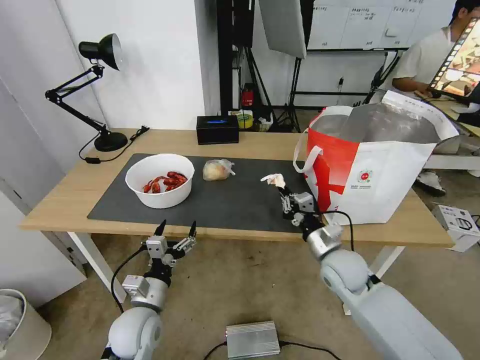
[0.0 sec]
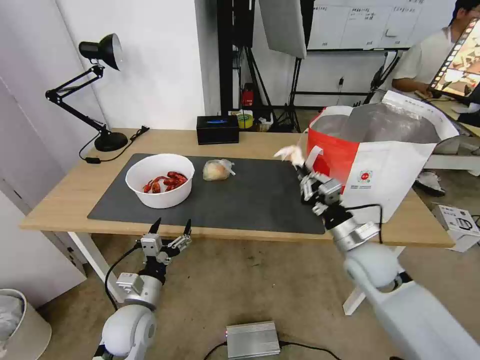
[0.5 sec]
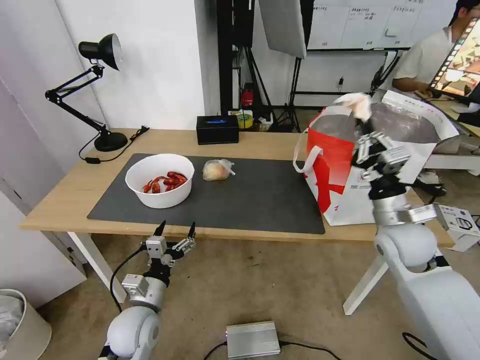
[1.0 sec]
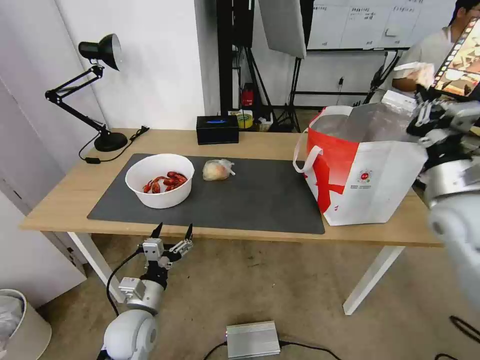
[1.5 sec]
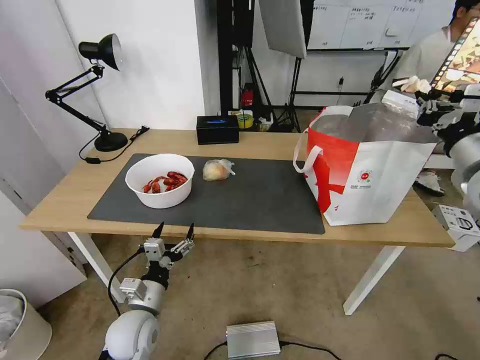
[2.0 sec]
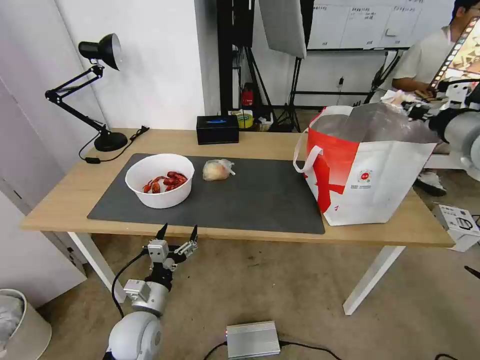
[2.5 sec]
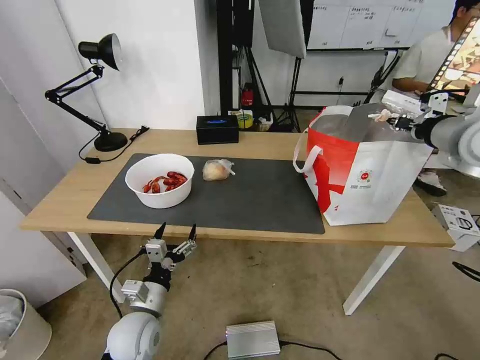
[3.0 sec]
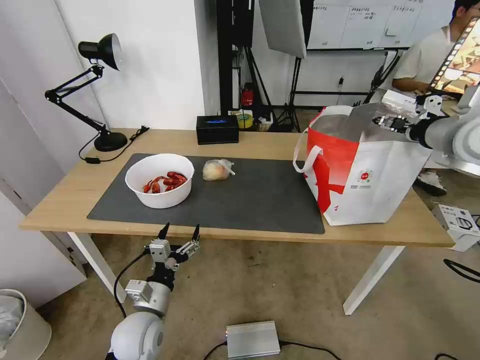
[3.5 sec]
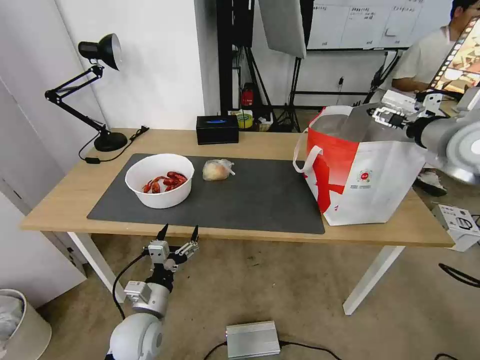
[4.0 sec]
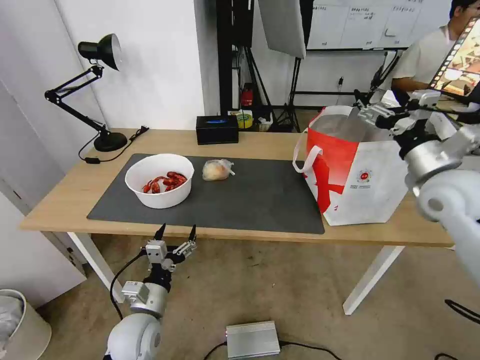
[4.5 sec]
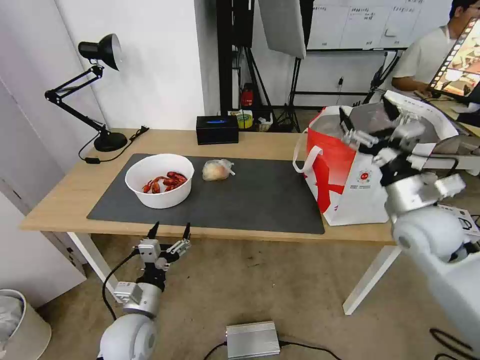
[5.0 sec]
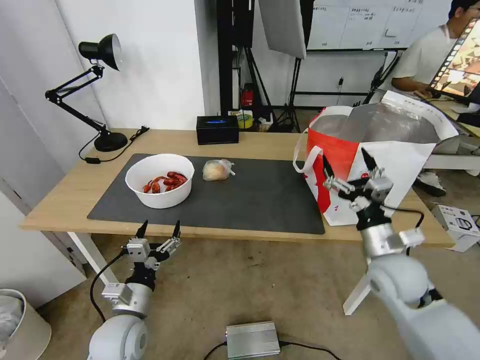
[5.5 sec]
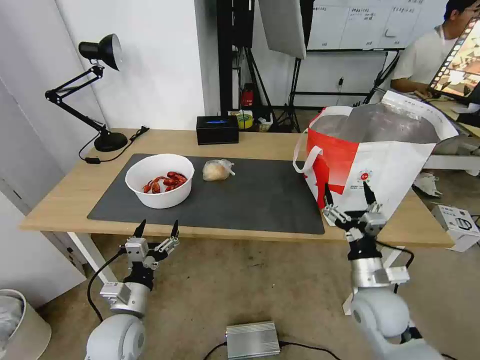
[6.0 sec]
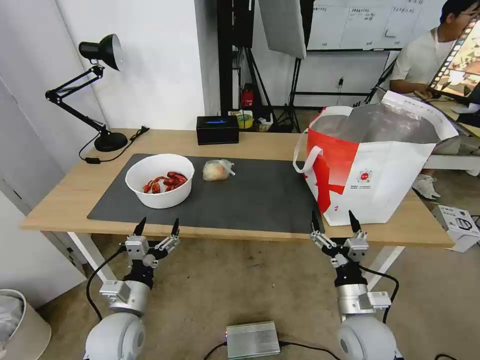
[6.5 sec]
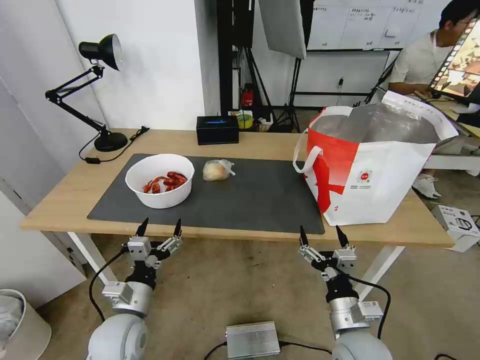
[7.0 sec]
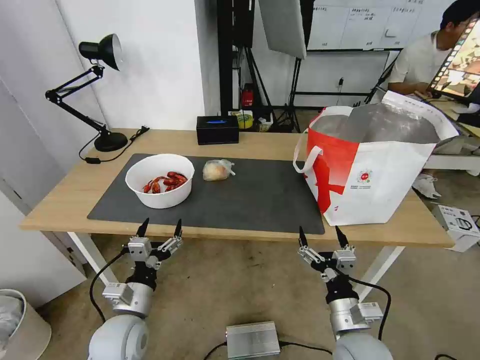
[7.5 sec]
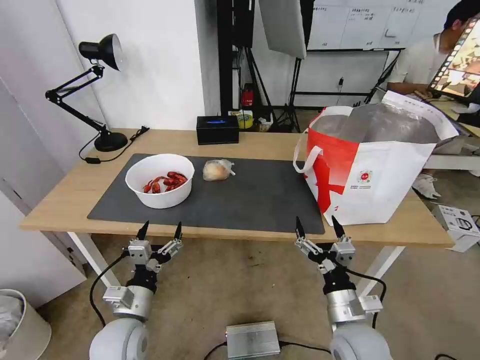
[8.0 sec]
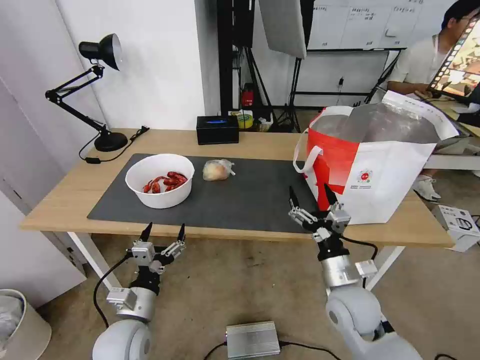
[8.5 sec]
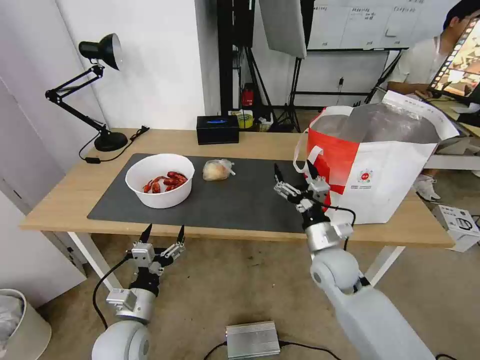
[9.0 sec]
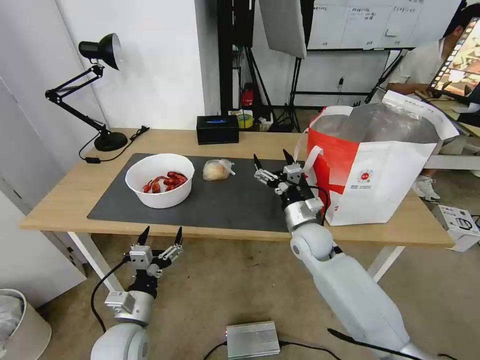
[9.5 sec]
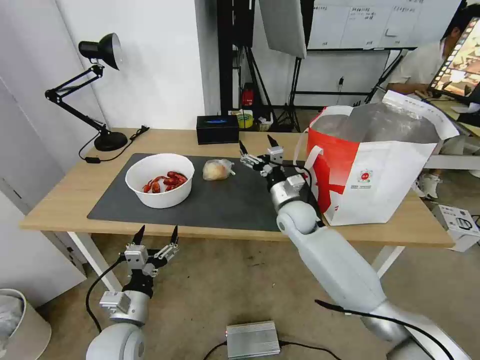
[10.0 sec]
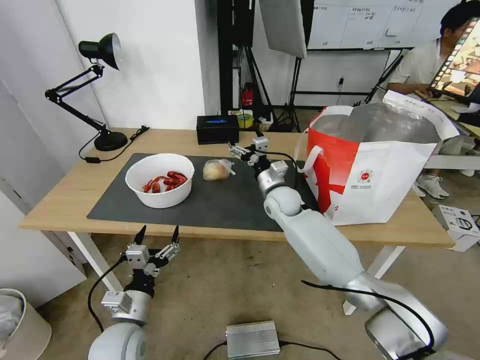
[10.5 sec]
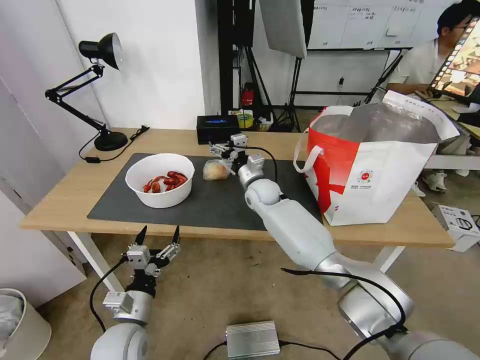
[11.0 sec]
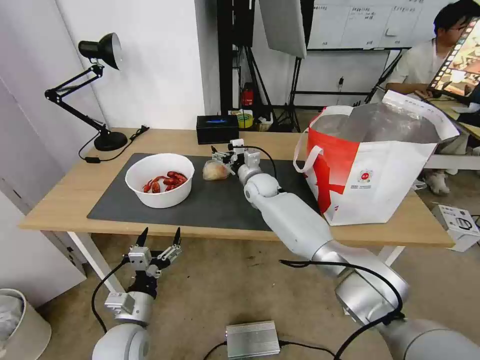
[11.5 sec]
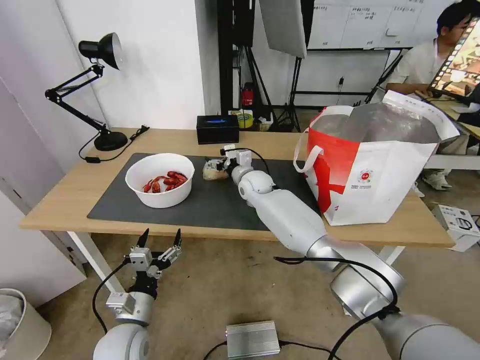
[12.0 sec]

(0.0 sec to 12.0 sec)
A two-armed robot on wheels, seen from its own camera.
Task of the whole recording: Pick up the trash from the table and place it into the takeout bag.
0.0 sec - 2.0 sec: The right gripper moves upward and to the right, roughly 30 cm.
2.0 sec - 4.0 sec: The right gripper travels forward by roughly 5 cm, and opens up.
4.0 sec - 6.0 sec: The right gripper travels downward, backward and to the left by approximately 35 cm.
6.0 sec - 8.0 sec: The right gripper goes approximately 10 cm backward and to the left.
8.0 sec - 10.0 sec: The right gripper heads forward, covering approximately 25 cm.
10.0 sec - 12.0 sec: The right gripper goes roughly 15 cm forward and to the left.

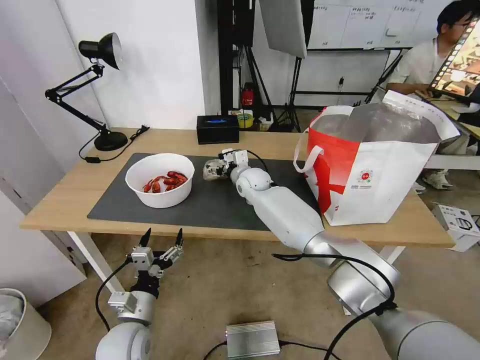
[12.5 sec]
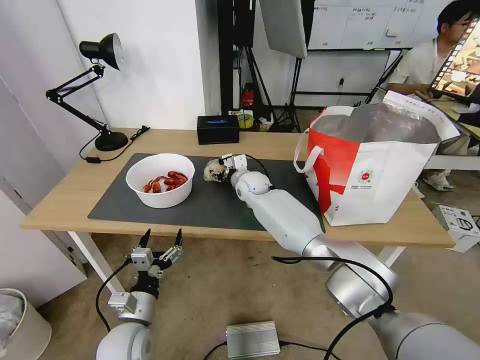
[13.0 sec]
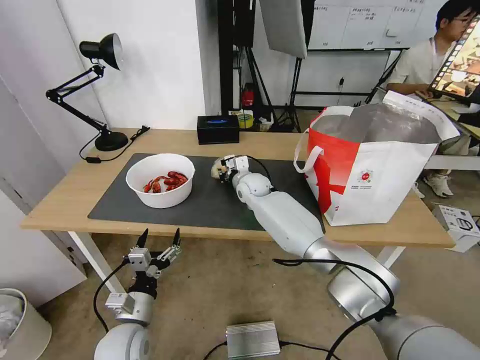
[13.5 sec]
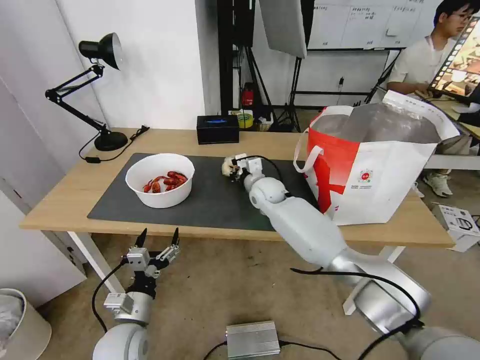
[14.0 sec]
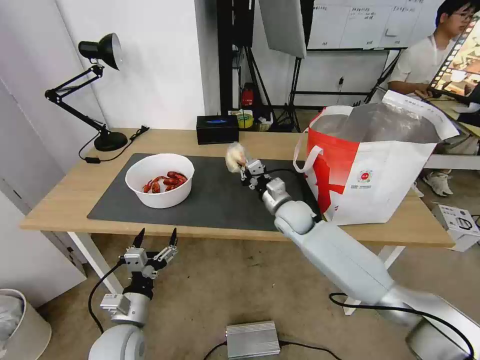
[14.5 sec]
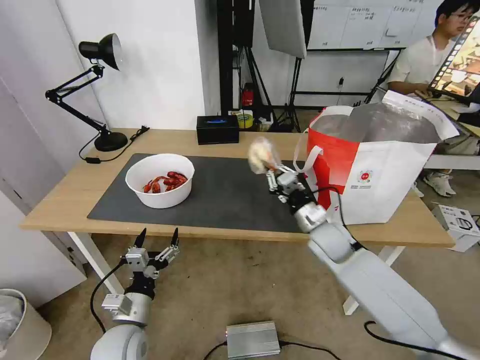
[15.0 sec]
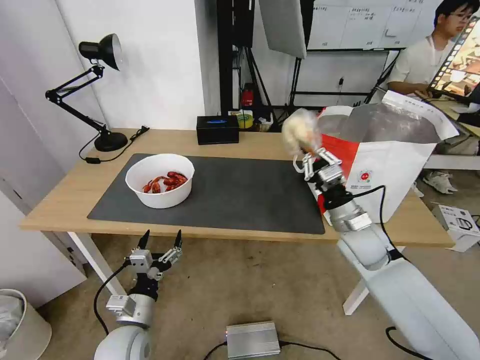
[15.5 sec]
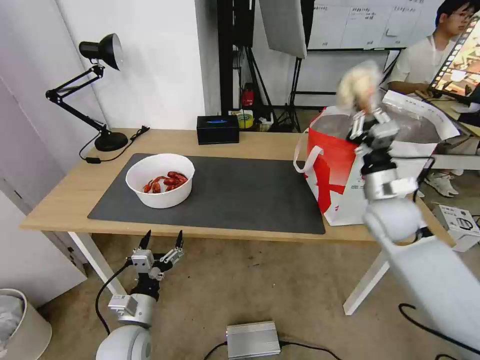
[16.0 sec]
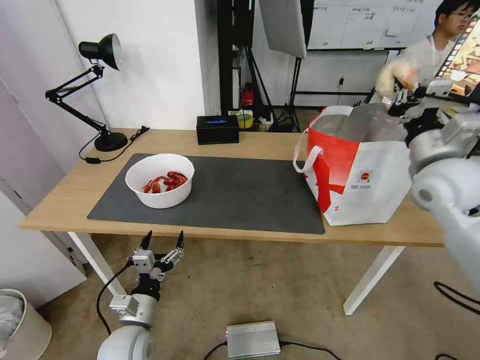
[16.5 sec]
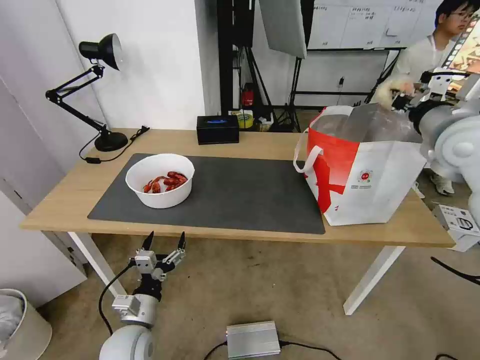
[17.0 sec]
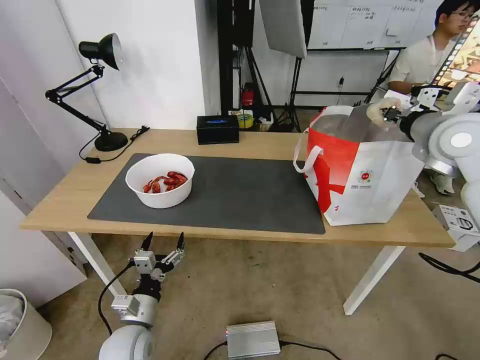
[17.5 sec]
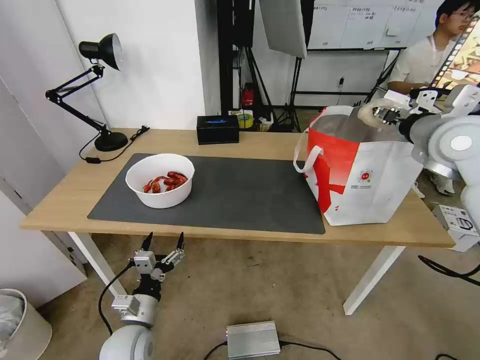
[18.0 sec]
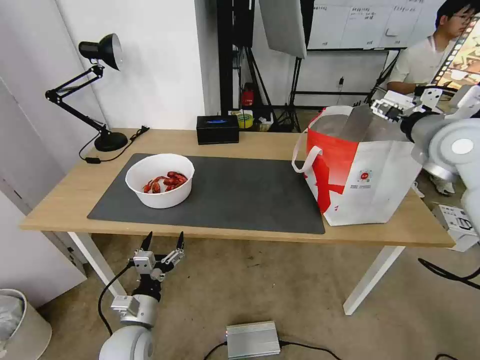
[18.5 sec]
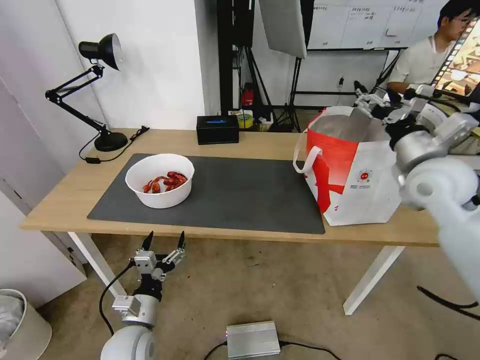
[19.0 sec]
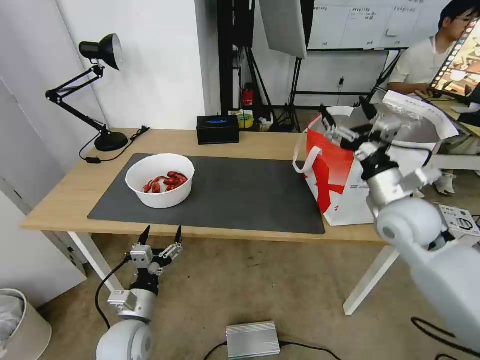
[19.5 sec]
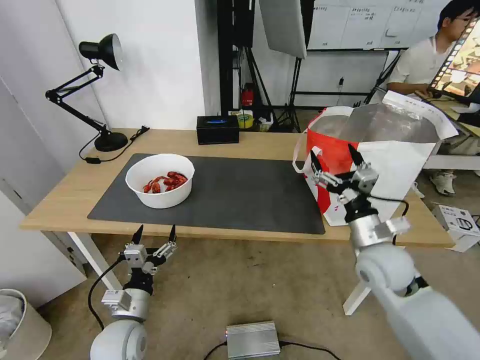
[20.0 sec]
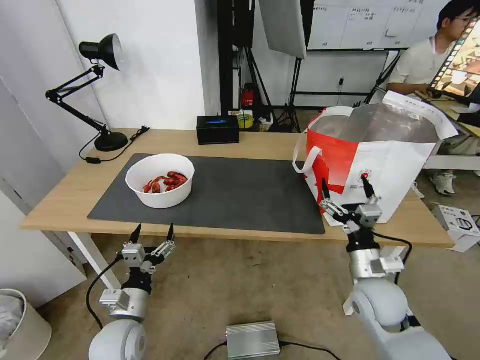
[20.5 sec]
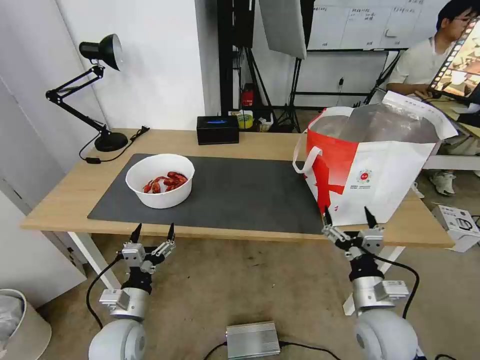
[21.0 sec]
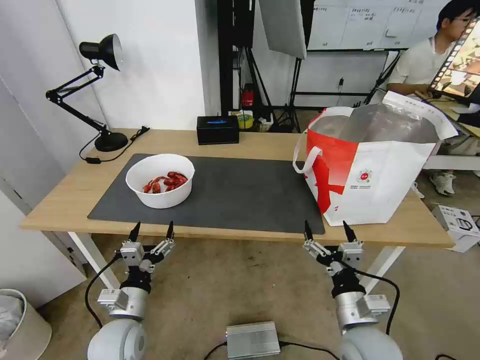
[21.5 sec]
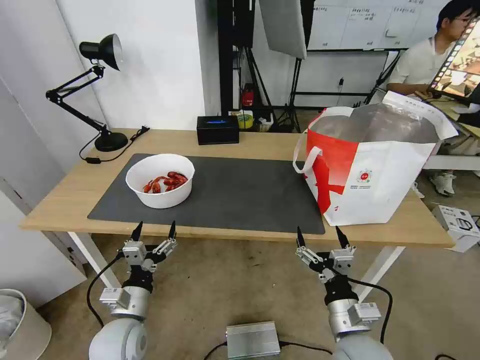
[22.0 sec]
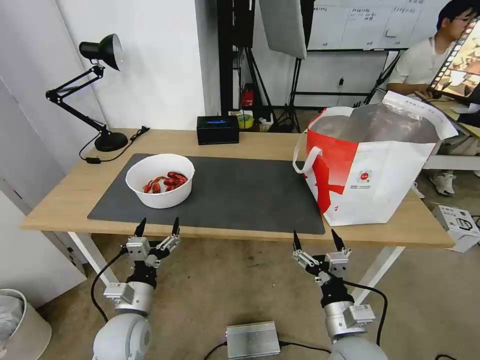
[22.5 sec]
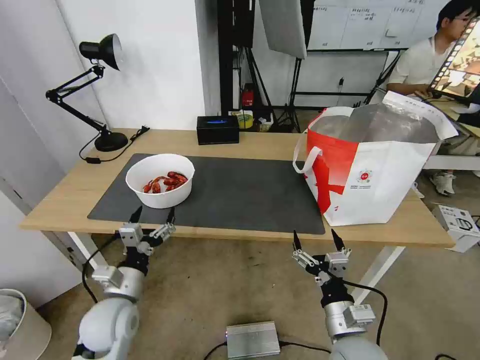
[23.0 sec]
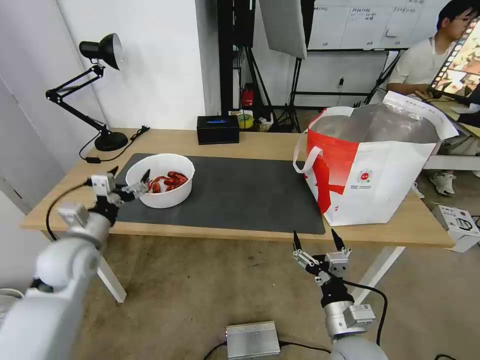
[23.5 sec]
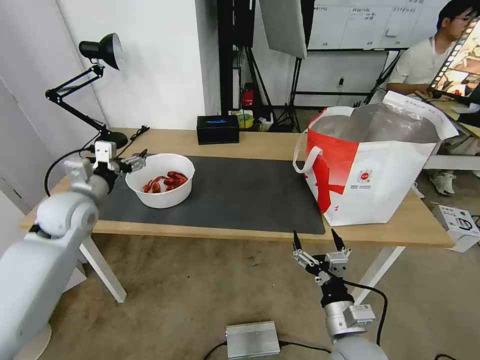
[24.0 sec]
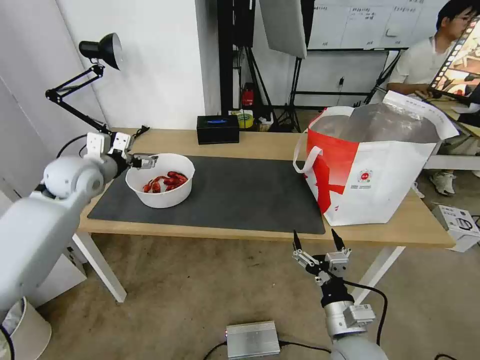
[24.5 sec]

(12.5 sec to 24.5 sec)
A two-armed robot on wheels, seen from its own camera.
Task of the whole recording: Pick up the trash from the table and place it into the takeout bag.
12.5 sec - 14.5 sec: The right gripper travels backward and to the right by roughly 15 cm, and closes.
14.5 sec - 16.5 sec: The right gripper travels to the right, upward and backward by some 30 cm.
16.5 sec - 18.5 sec: The right gripper travels upward by roughly 5 cm, and opens its fingers.
18.5 sec - 20.5 sec: The right gripper is displaced downward and backward by roughly 30 cm.
20.5 sec - 22.5 sec: The right gripper shifts about 15 cm backward and to the left.
22.5 sec - 24.5 sec: The left gripper travels forward, upward and to the left by approximately 35 cm.

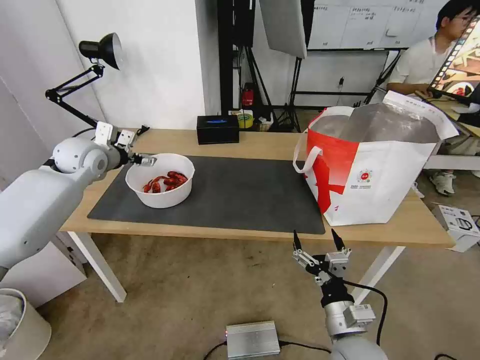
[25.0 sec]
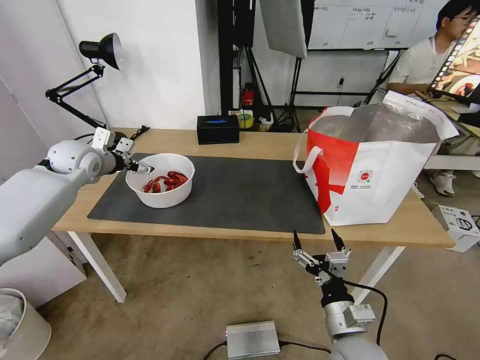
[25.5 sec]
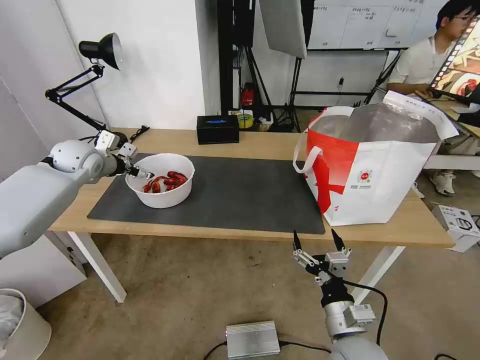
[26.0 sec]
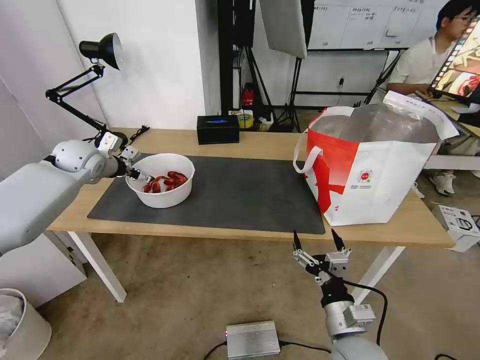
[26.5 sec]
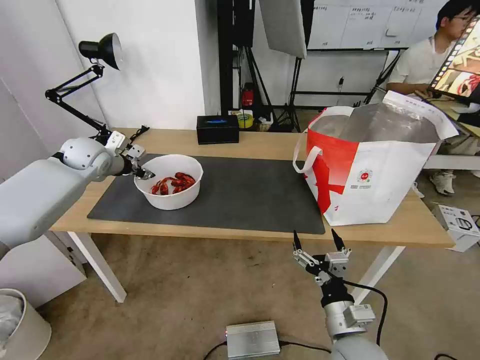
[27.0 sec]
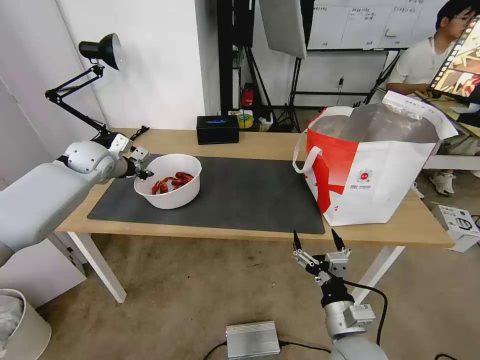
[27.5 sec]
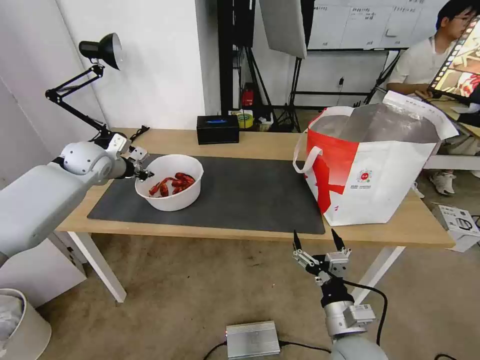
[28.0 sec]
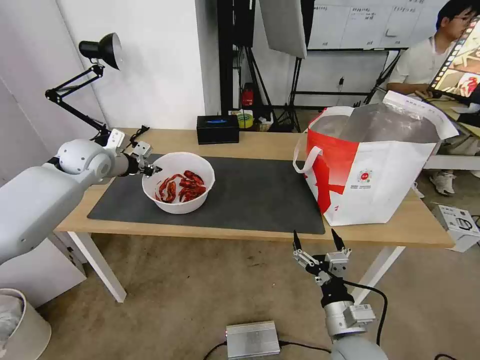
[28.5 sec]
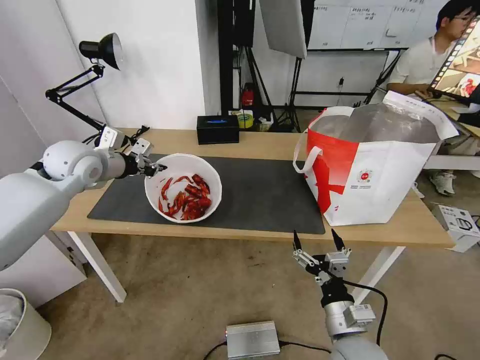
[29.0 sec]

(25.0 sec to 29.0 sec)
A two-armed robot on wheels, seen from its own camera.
Task of the whole recording: Pick up the trash from the table and place it into the takeout bag.
25.0 sec - 27.0 sec: The left gripper closes.
27.0 sec - 29.0 sec: The left gripper moves backward, about 10 cm, and closes up.
